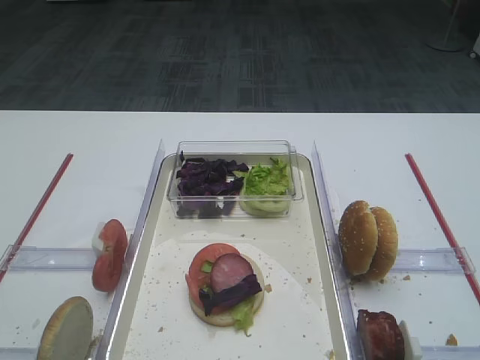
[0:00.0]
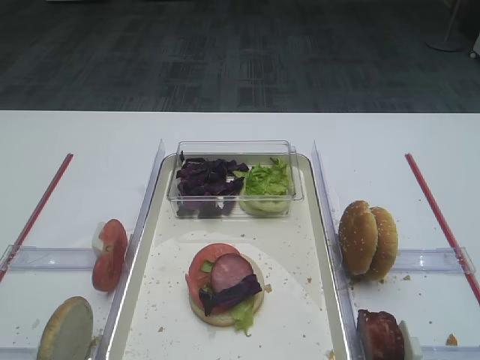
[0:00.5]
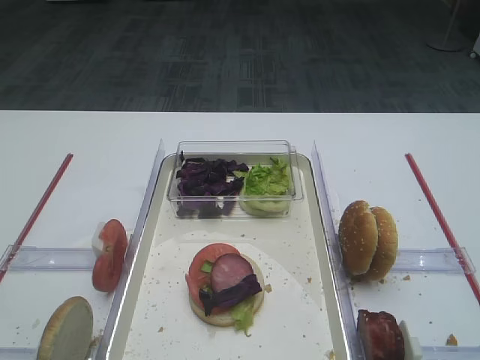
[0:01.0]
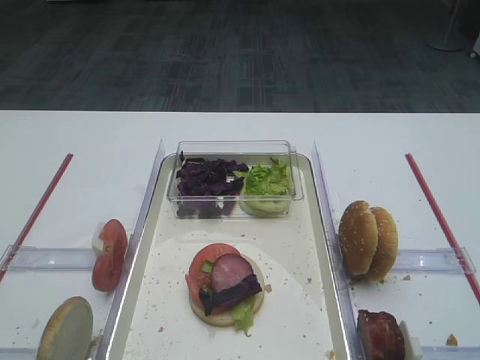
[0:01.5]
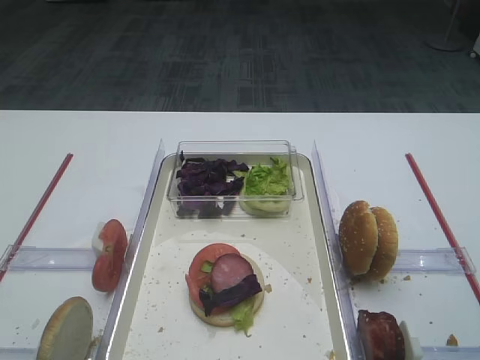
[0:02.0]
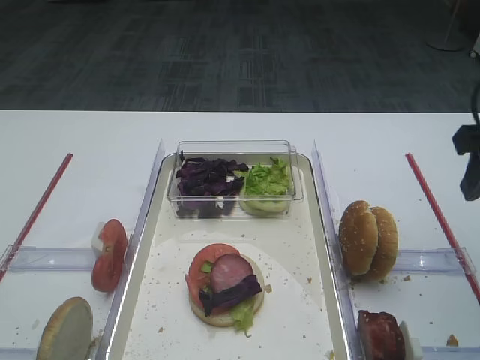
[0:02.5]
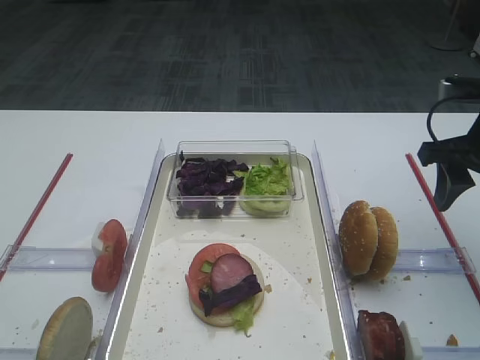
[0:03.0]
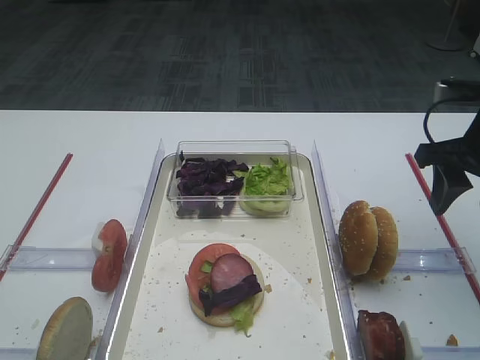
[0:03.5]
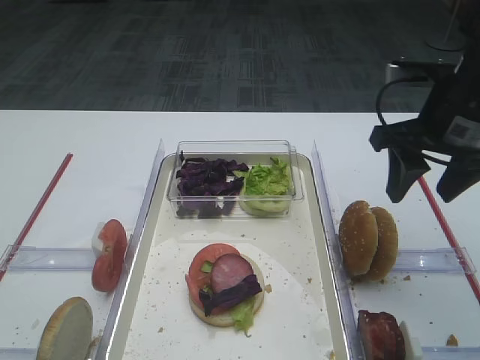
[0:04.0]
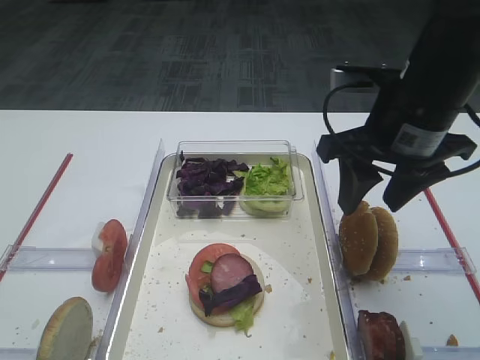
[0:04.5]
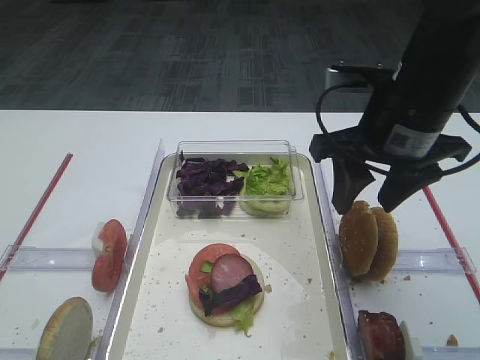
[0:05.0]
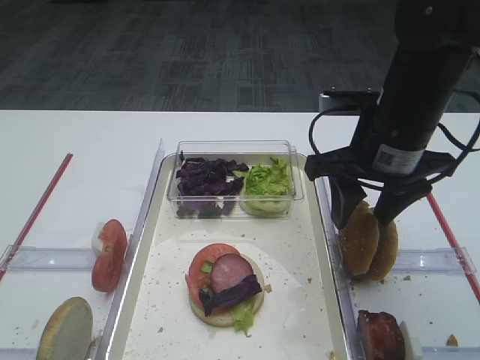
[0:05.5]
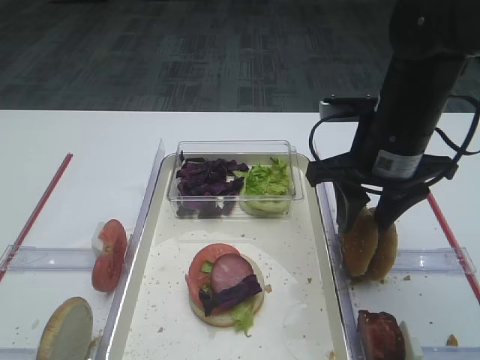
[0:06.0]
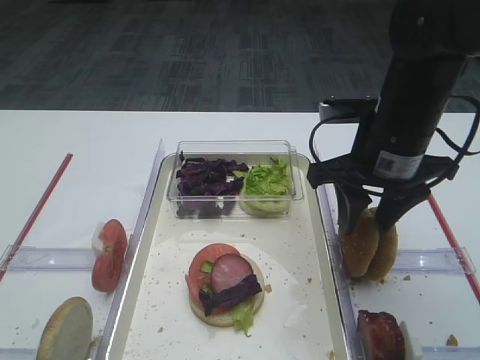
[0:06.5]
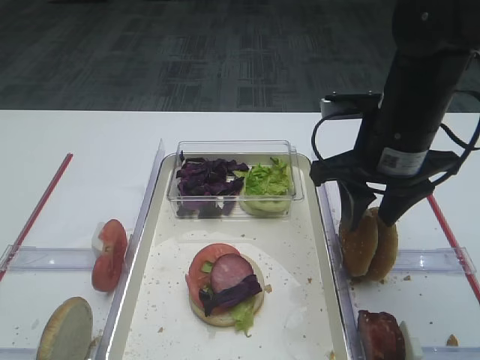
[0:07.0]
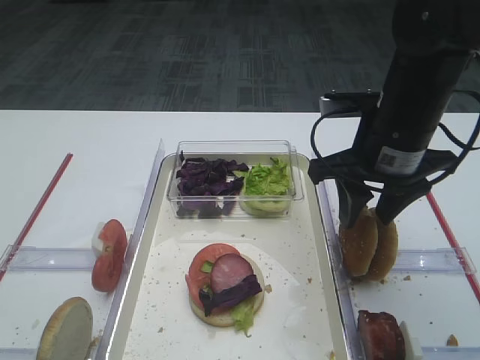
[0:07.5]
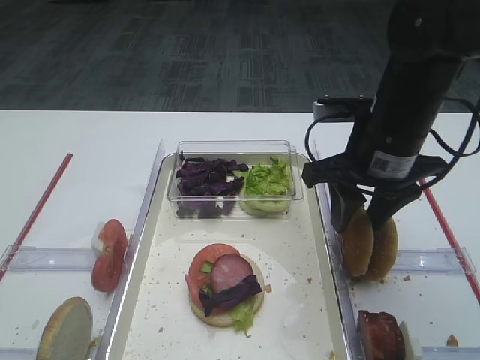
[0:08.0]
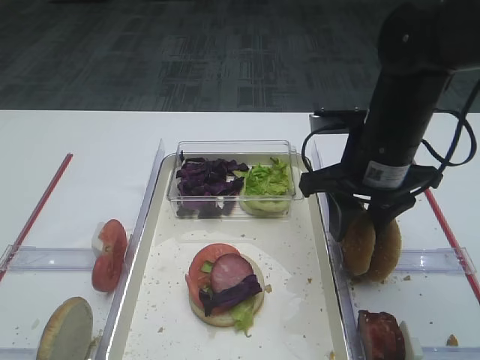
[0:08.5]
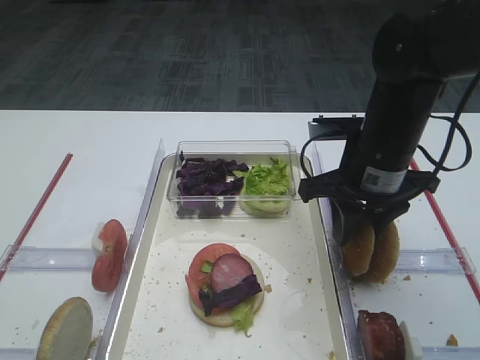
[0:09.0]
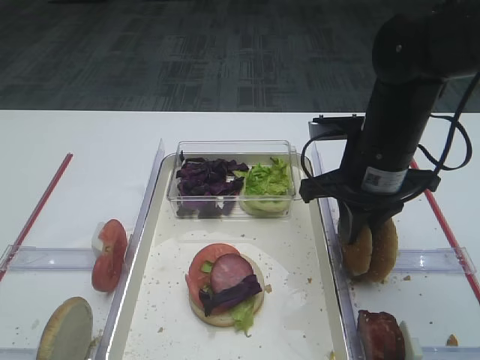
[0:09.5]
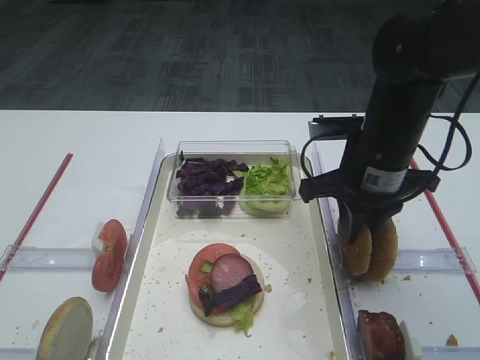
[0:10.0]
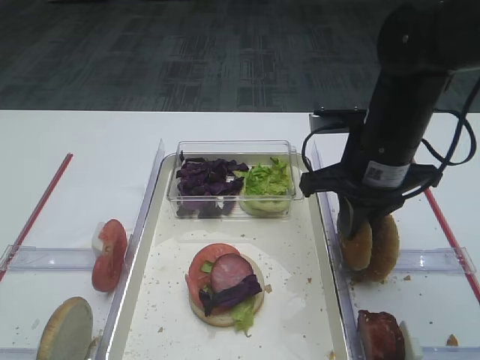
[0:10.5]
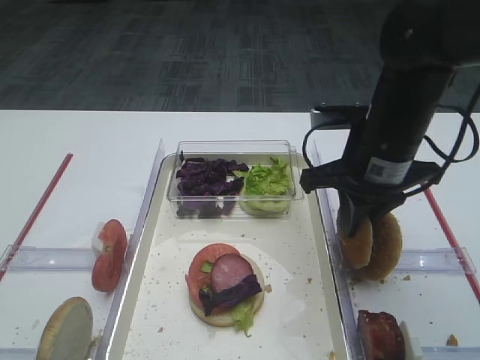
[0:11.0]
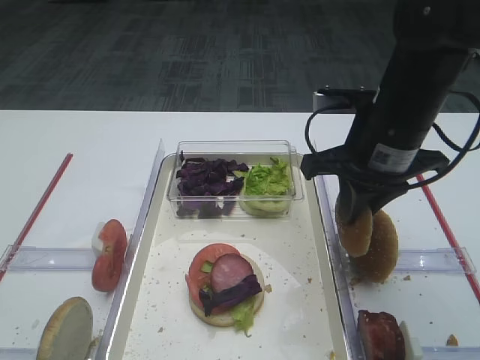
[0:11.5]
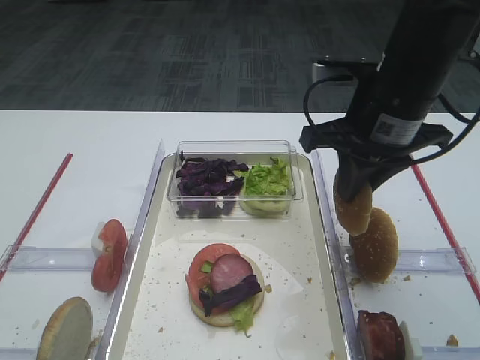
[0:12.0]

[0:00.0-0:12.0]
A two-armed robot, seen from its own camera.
Step, 0:00.0 to 0:11.5: Pick up the hamburger lid with the right gripper.
0:02.0 to 0:04.0: The right gripper heads forward, covering roughly 20 cm.
0:04.0 to 0:06.0: The right gripper goes approximately 5 cm to the left.
0:06.0 to 0:08.0: Both grippers stay put.
0:08.0 to 0:10.0: The right gripper closes.
0:10.0 to 0:12.0: The right gripper heads upward, covering some 5 cm.

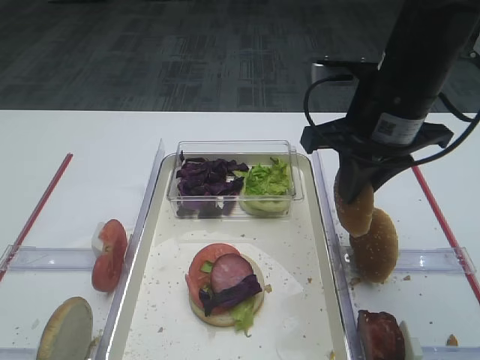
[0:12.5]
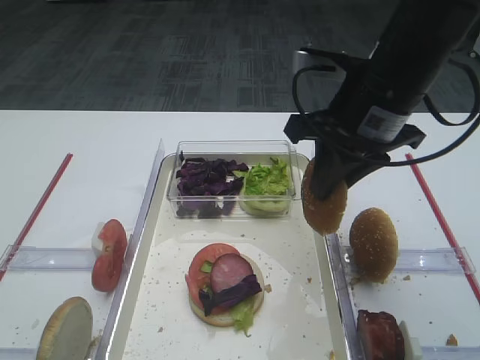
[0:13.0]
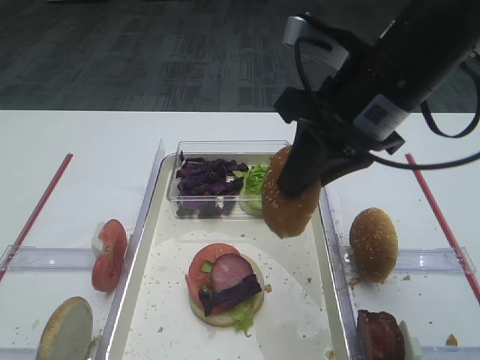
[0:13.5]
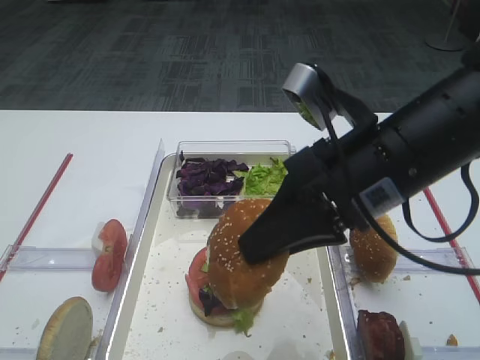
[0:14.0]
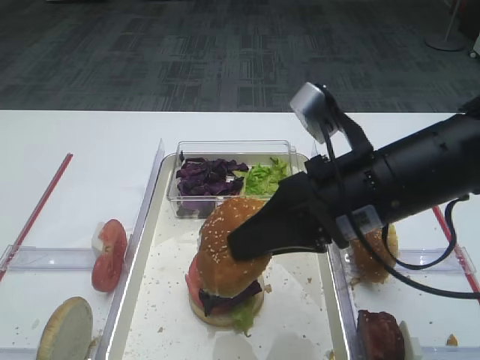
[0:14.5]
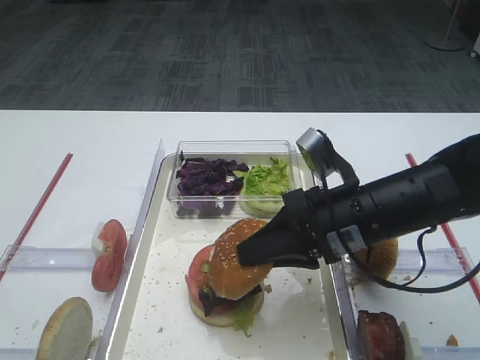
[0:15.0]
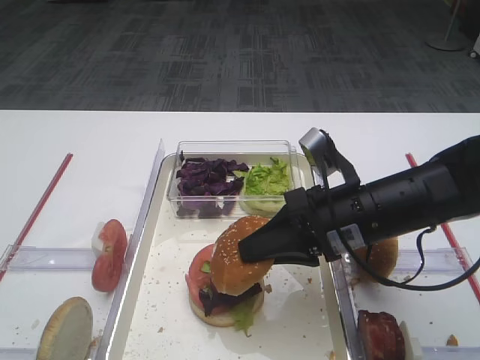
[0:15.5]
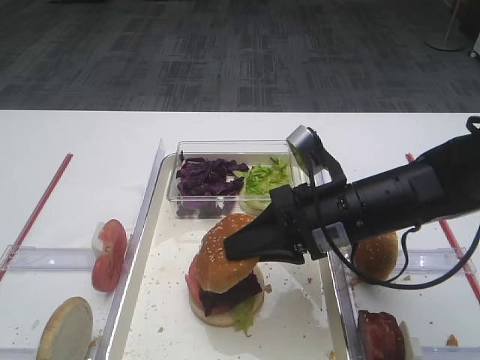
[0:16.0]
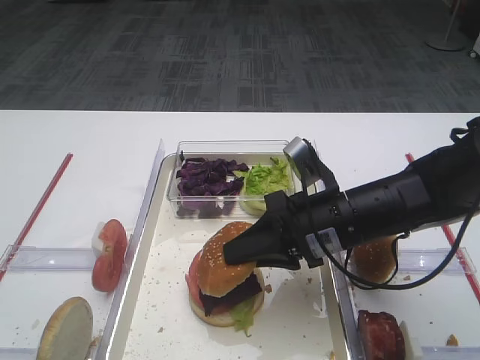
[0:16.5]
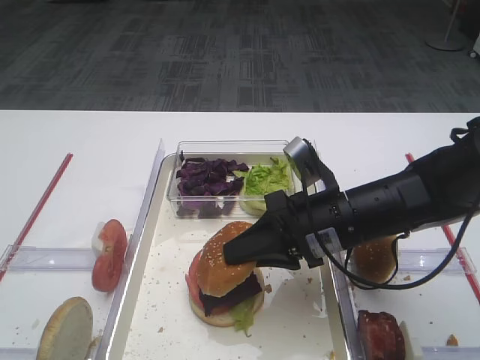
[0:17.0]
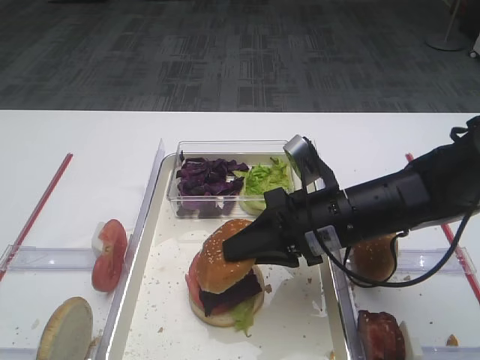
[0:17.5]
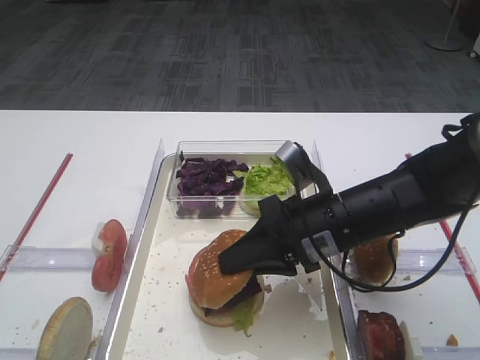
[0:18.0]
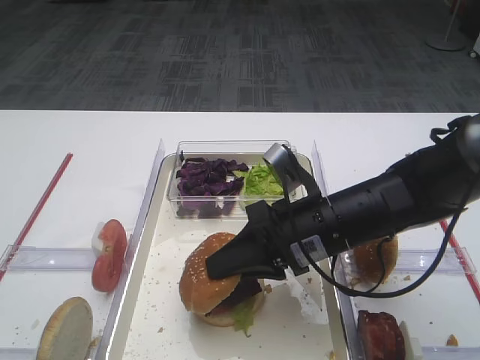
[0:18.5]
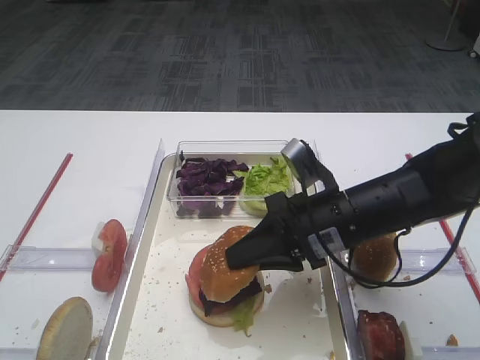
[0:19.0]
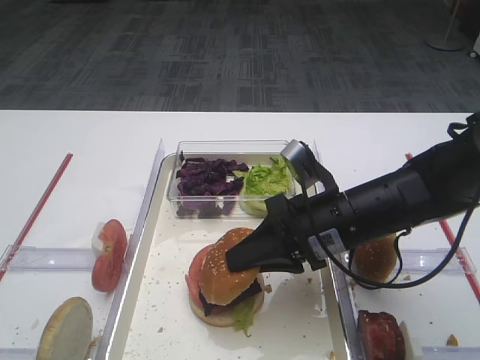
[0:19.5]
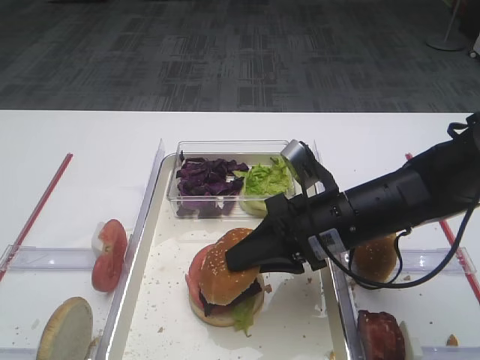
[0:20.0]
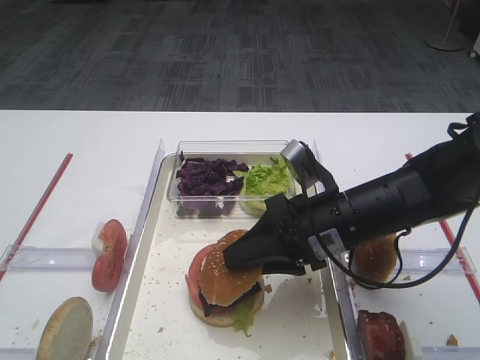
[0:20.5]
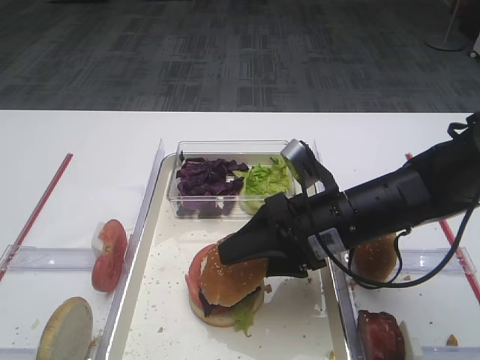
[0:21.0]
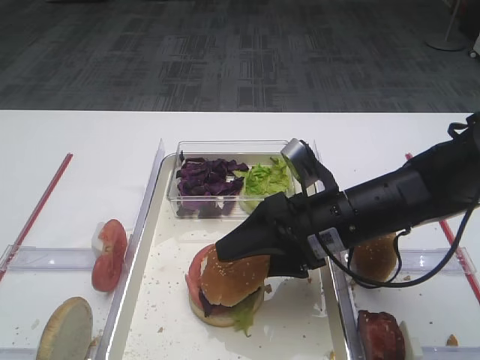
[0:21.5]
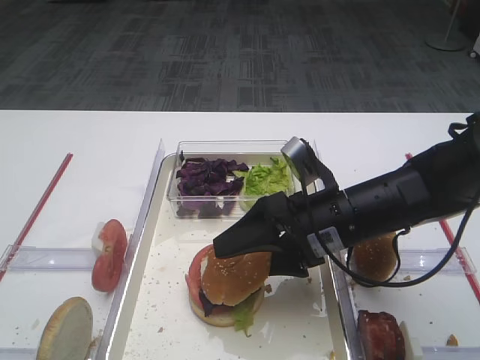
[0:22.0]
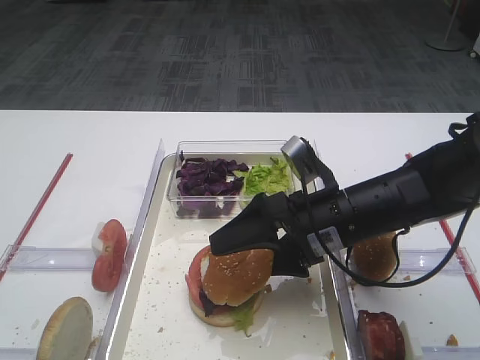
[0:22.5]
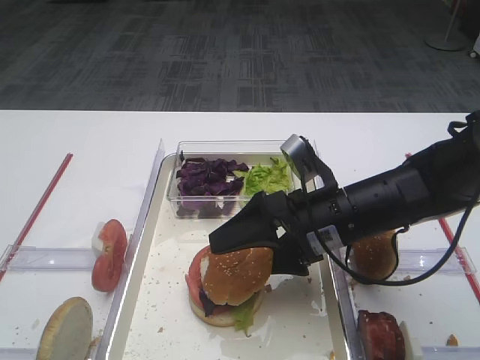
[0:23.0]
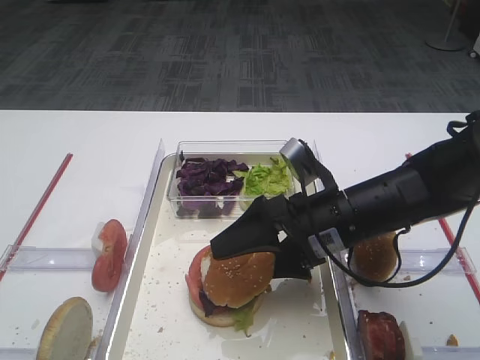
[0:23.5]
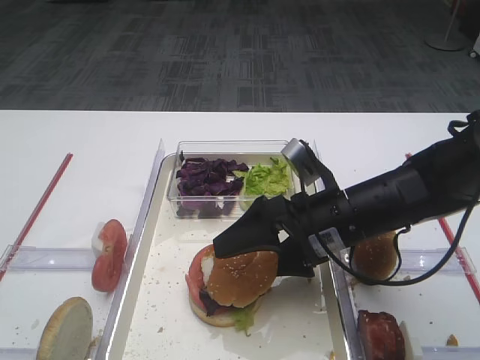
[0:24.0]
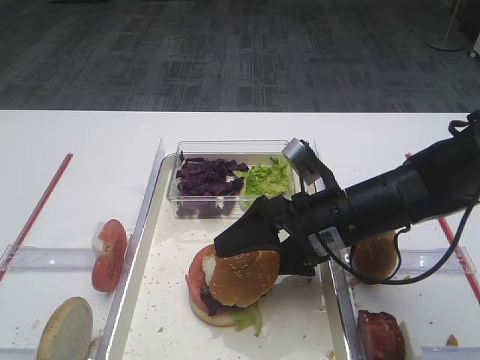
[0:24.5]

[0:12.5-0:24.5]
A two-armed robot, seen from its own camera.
0:12.5 to 0:14.5: The right gripper heads backward, covering roughly 10 cm.
0:14.5 to 0:16.5: The right gripper travels downward by approximately 10 cm.
0:16.5 to 0:20.5: The grippers make only small movements.
0:20.5 to 0:22.5: The right gripper opens up.
0:22.5 to 0:24.5: Both grippers stay about where they are.

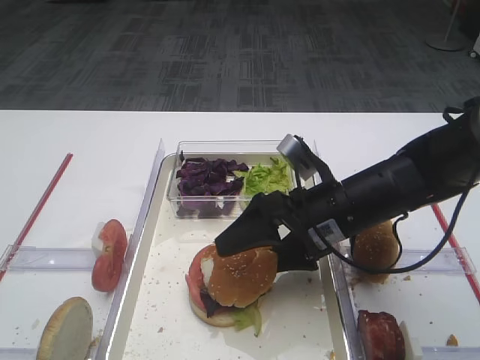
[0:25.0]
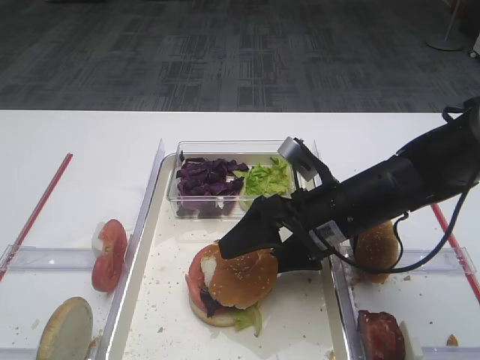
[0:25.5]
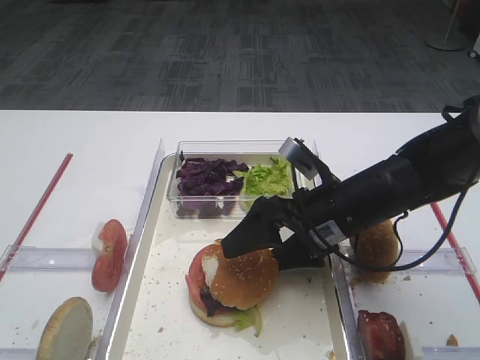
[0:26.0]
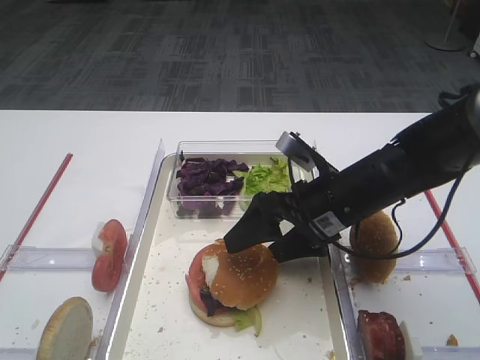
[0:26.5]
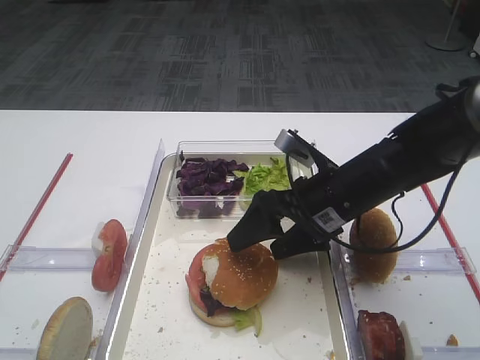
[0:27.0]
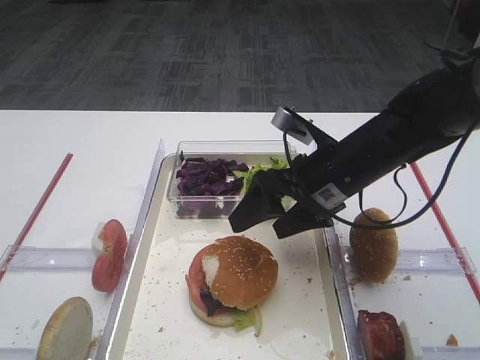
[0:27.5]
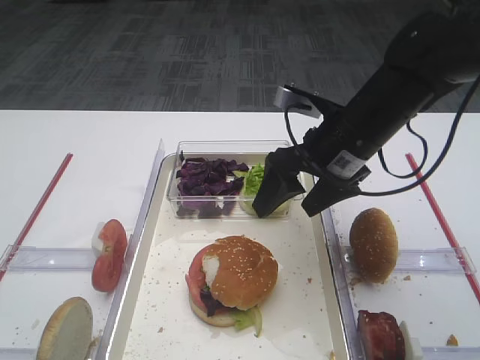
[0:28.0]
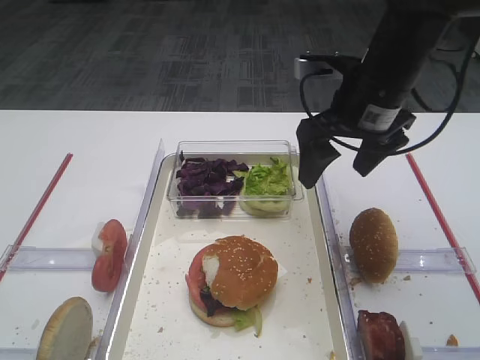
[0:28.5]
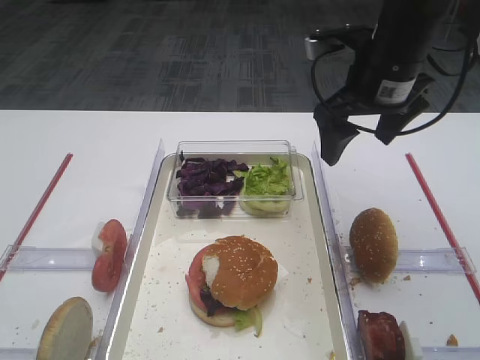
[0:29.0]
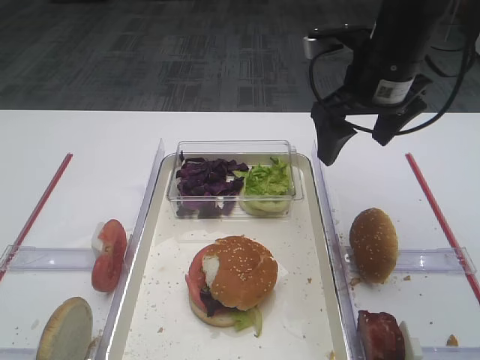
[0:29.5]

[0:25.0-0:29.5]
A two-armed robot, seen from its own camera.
Step, 0:25.0 to 0:27.0: Place the hamburger lid on the purple cabbage with the right gripper.
0:25.0 to 0:27.0: The grippers move only a little.
0:27.0 to 0:29.5: The right gripper heads upward and forward, covering some 15 cm.
